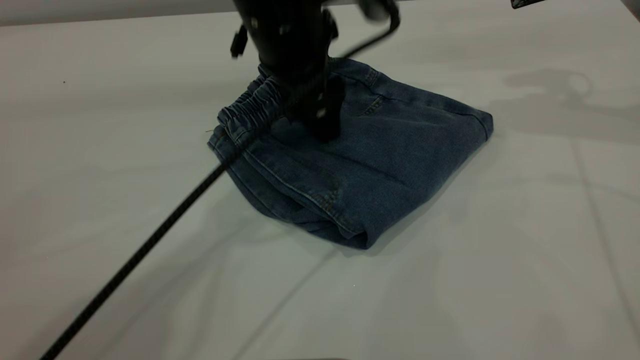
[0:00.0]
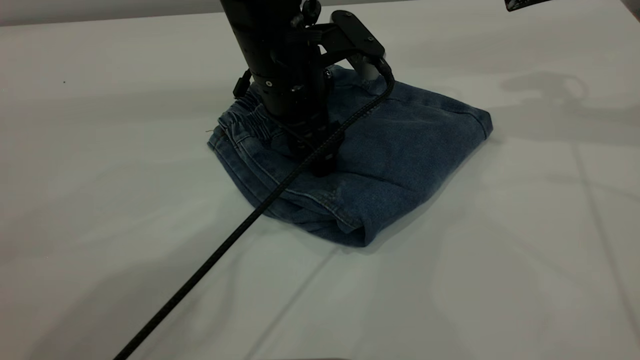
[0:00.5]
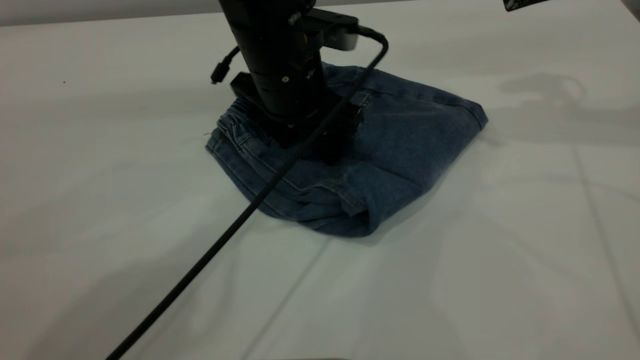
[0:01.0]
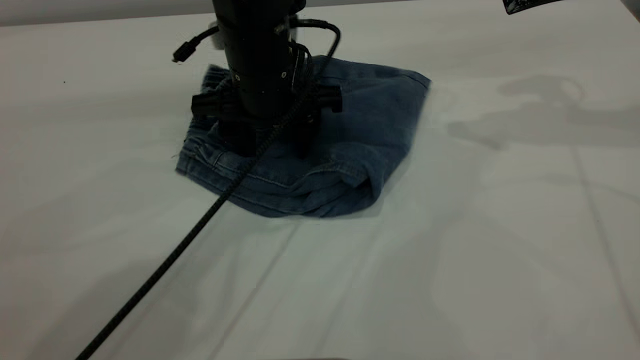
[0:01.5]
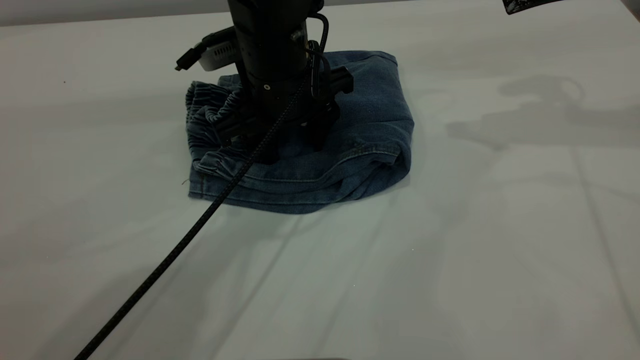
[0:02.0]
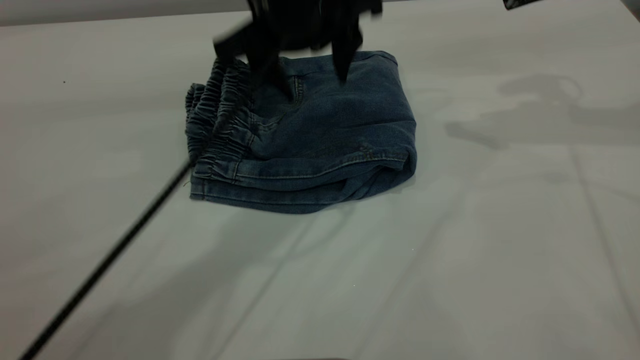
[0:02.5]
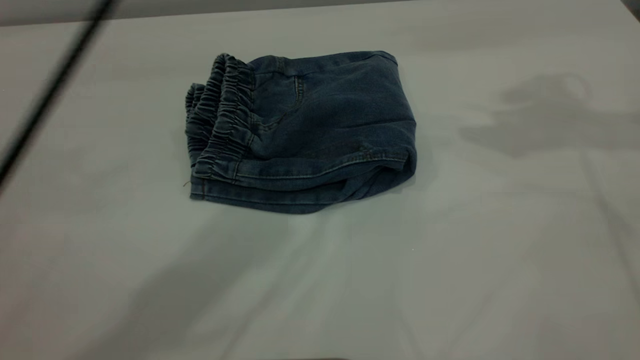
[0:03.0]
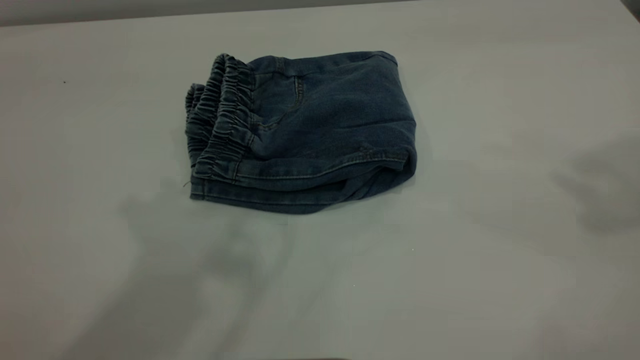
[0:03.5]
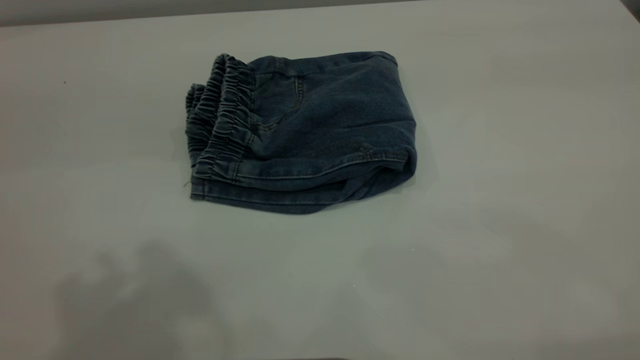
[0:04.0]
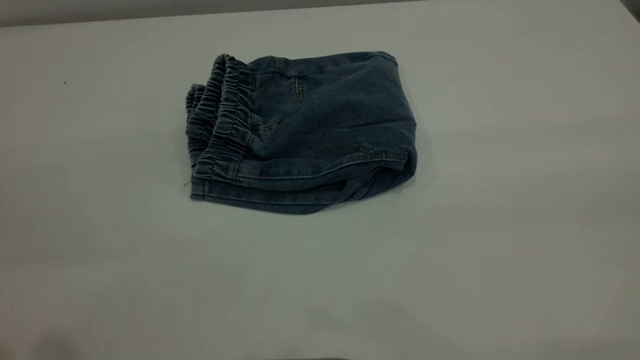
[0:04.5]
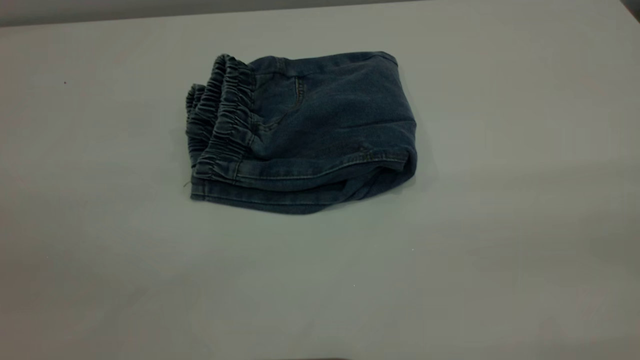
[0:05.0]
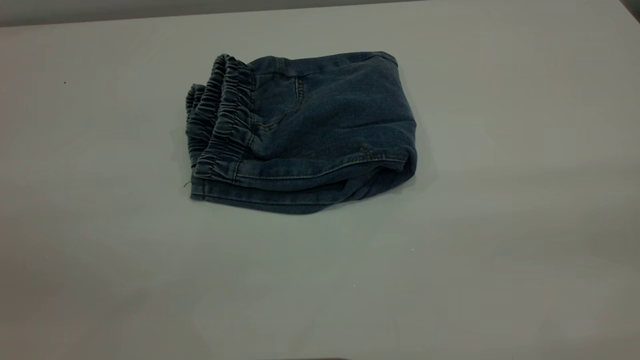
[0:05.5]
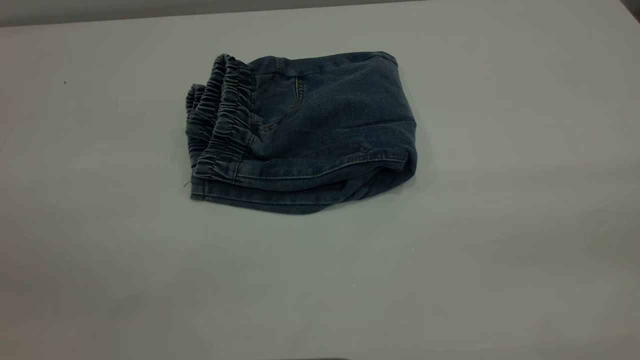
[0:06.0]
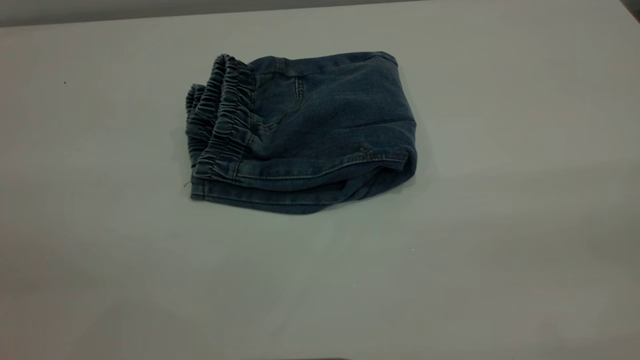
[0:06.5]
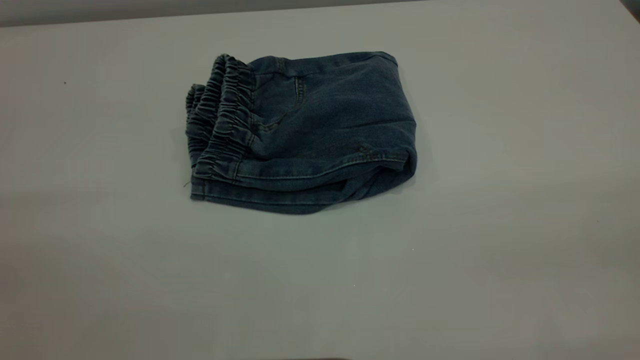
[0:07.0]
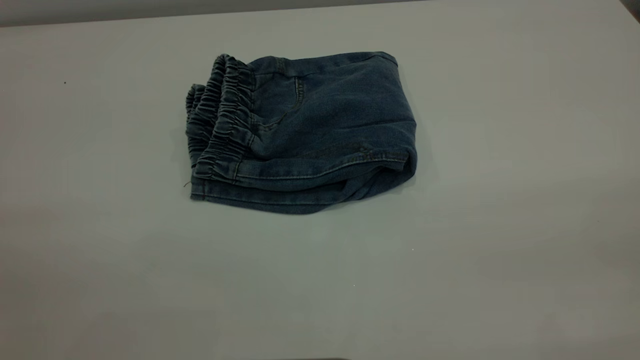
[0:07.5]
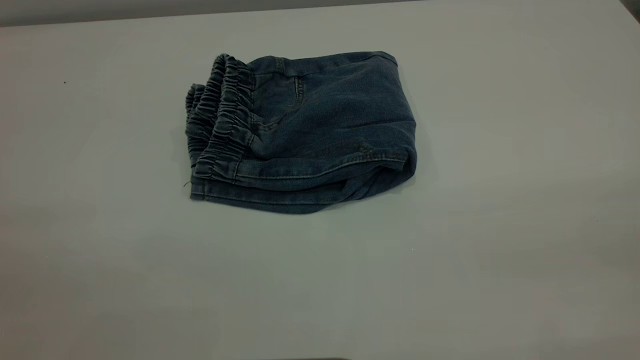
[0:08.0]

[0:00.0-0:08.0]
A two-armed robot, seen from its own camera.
0:00.0 to 0:02.0: The left gripper travels downward by approximately 5 cm.
0:02.0 to 0:04.0: The right gripper moves backward and upward, some 40 cm. The left gripper moves upward, backward and to the left, approximately 40 cm.

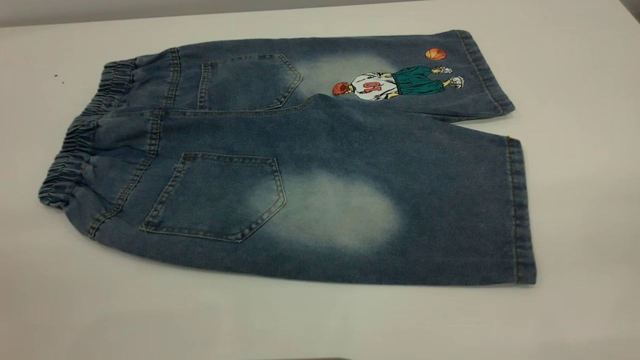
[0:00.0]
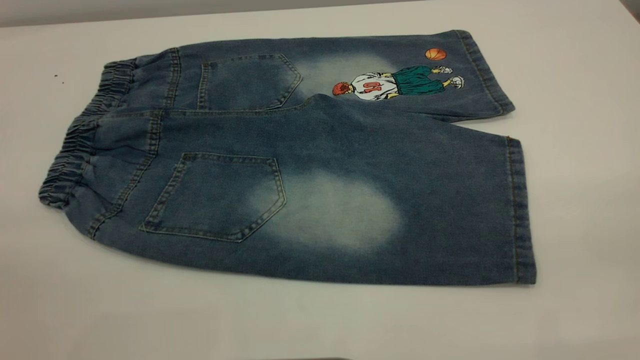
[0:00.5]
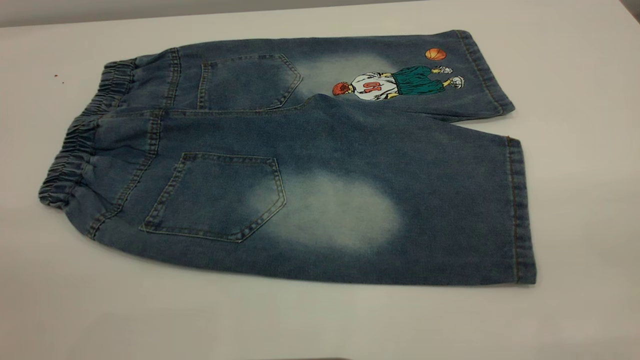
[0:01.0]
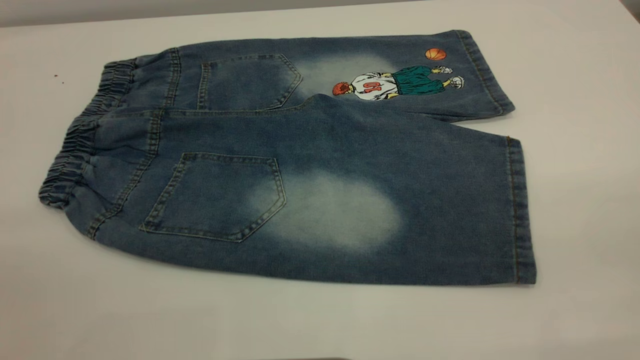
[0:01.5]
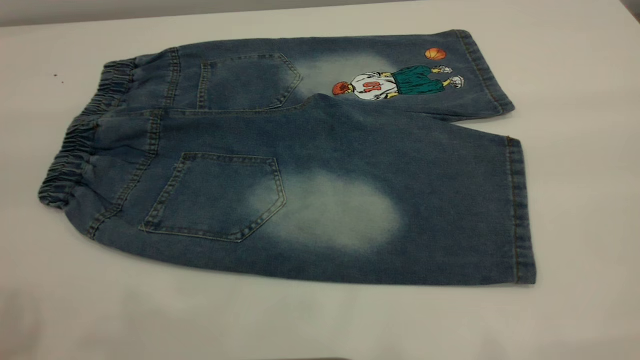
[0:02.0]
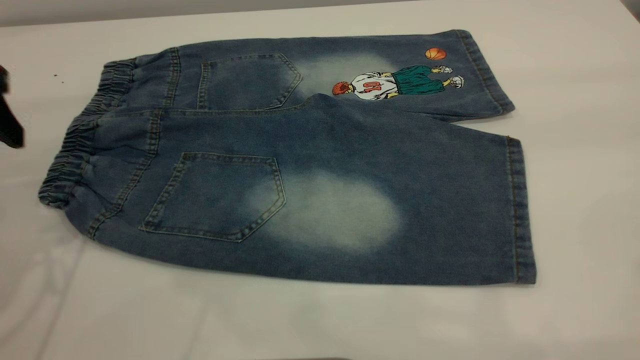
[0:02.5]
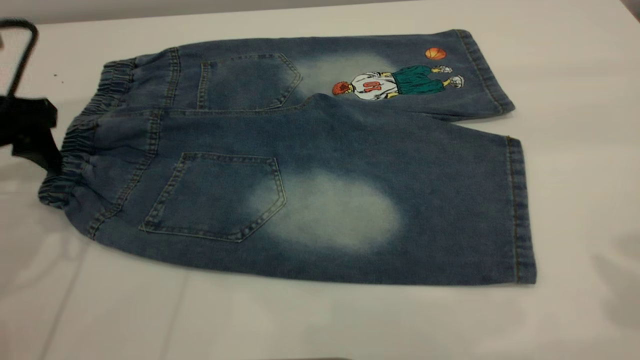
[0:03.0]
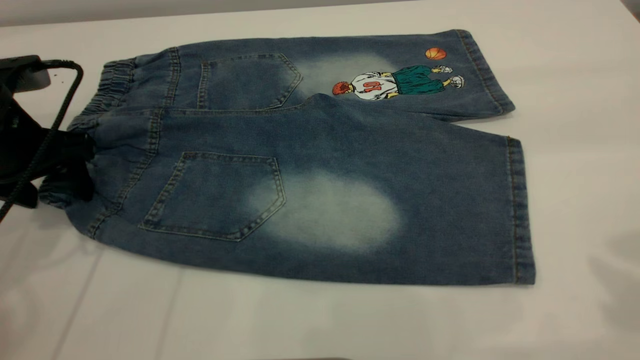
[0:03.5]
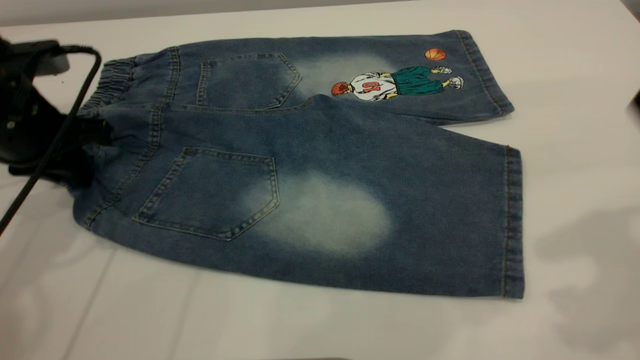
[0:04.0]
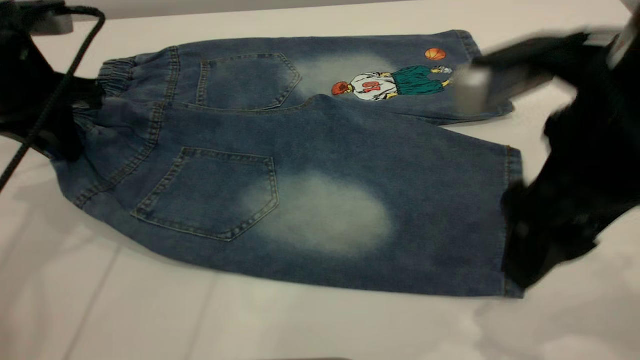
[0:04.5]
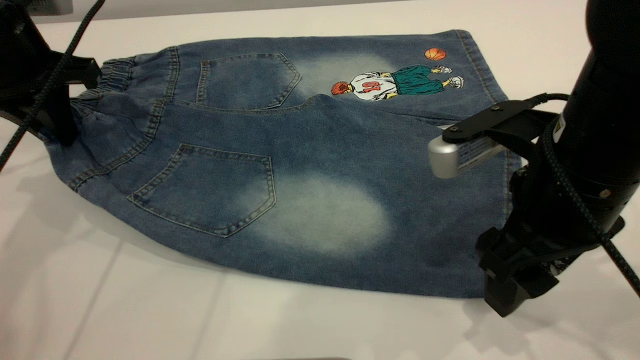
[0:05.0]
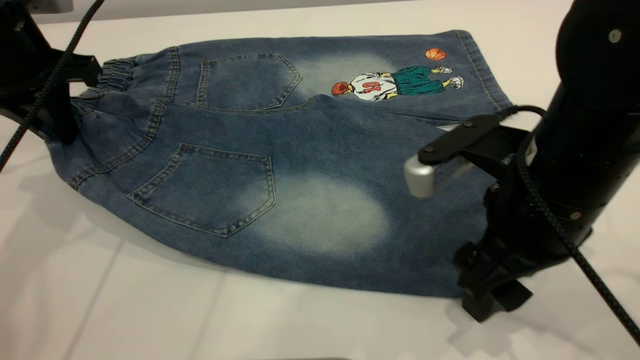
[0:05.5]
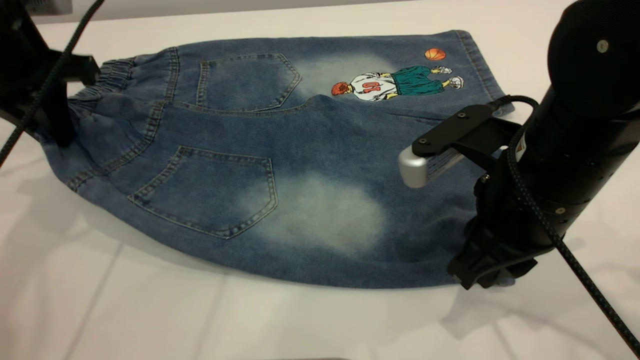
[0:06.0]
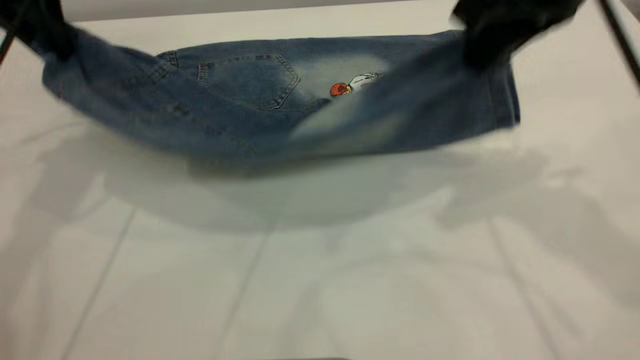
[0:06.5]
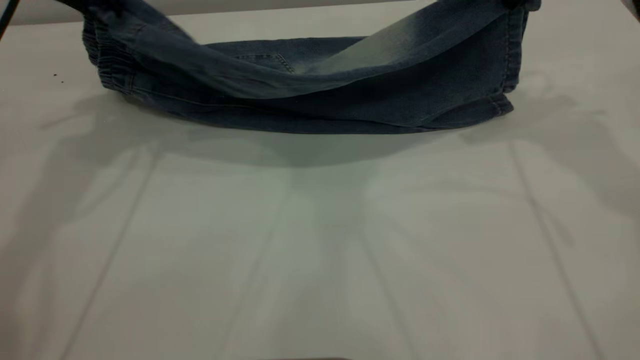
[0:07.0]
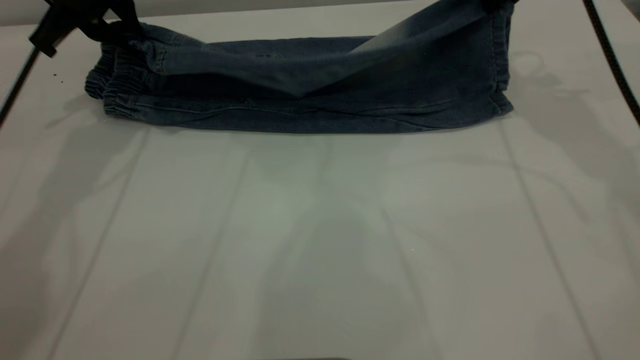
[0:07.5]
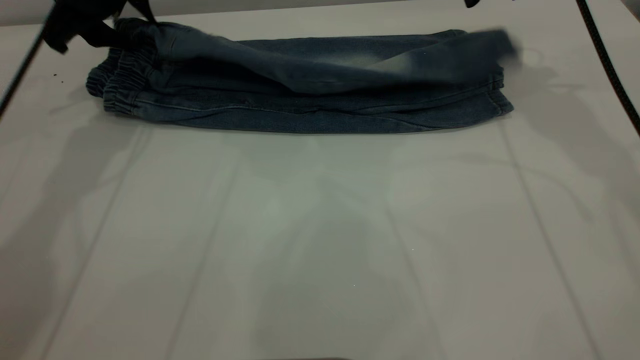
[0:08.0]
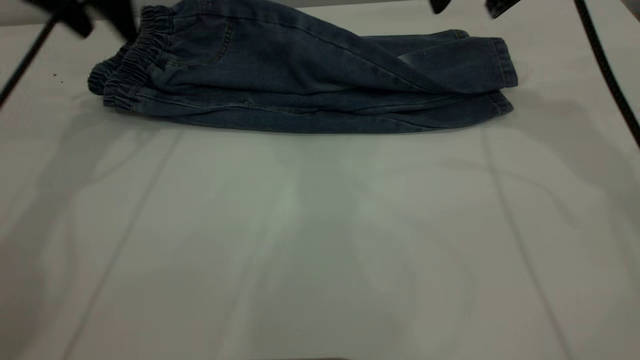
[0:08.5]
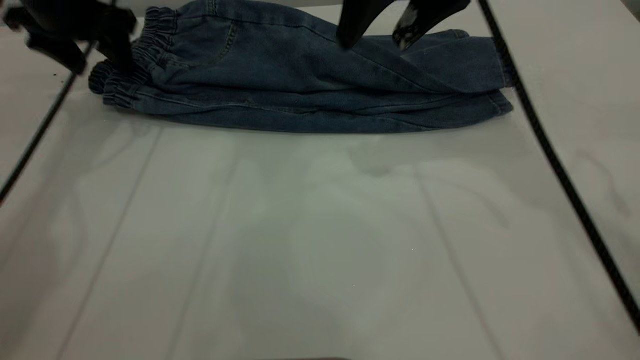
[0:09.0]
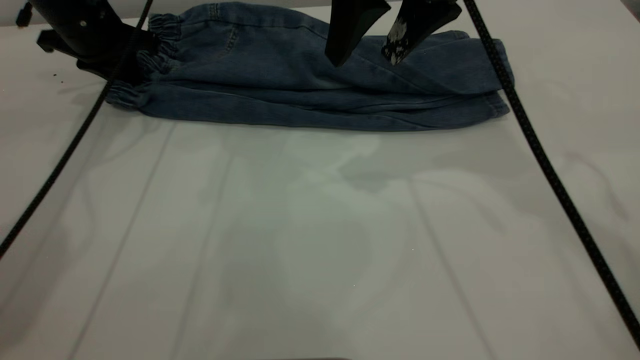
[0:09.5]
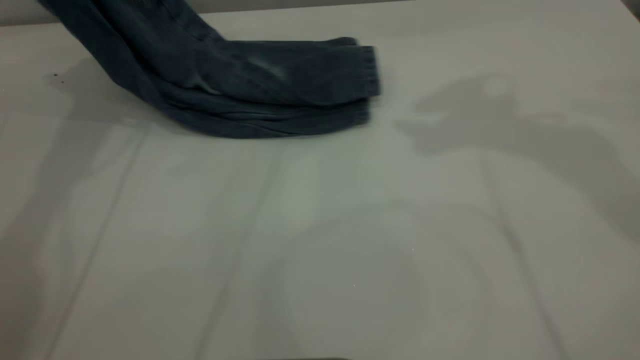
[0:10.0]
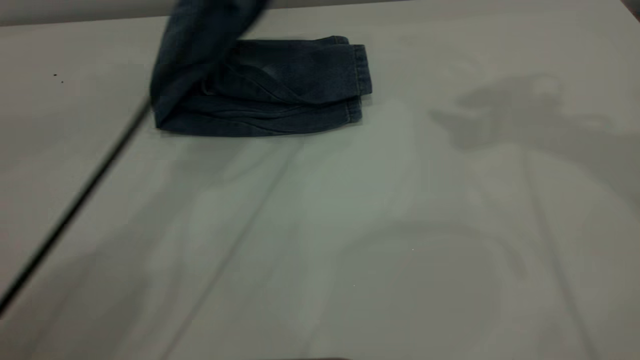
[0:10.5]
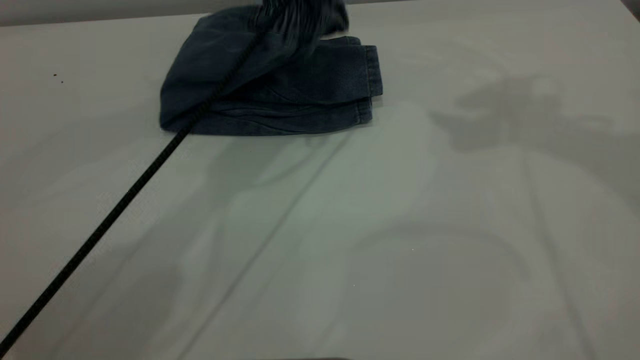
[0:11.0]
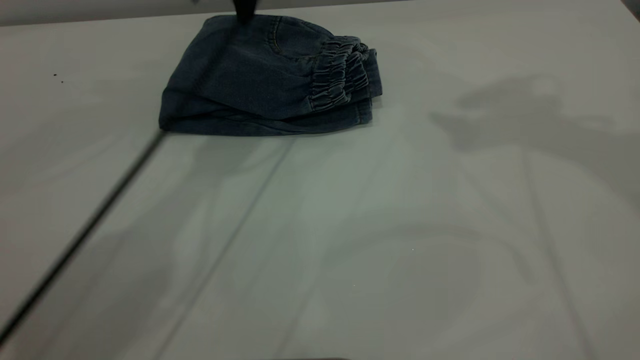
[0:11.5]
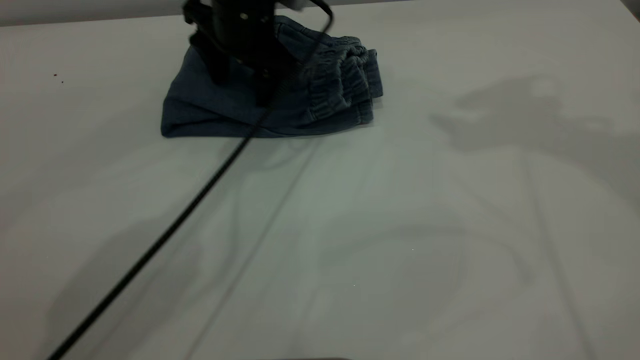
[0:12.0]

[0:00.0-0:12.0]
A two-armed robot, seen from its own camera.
Step, 0:00.0 to 0:08.5: Fold the bottom of the pants upward.
Step, 0:09.0 to 0:11.0: Fold the pants from left to right.
0:02.0 to 0:04.0: The left gripper moves downward and forward, about 25 cm, and closes up, while the right gripper goes some 15 cm forward, downward and to the left.
0:04.0 to 0:06.0: The left gripper shifts about 5 cm upward. Meanwhile the right gripper goes roughly 20 cm downward and to the left, and closes its fingers.
0:06.0 to 0:08.0: The right gripper shifts approximately 25 cm forward and upward, and opens, while the left gripper travels forward by roughly 10 cm, and opens up.
0:08.0 to 0:10.0: The right gripper is displaced upward and backward by approximately 20 cm, while the left gripper travels upward by about 15 cm, and closes its fingers.
0:10.0 to 0:12.0: The left gripper moves to the right and downward, about 30 cm, and opens its fingers.
